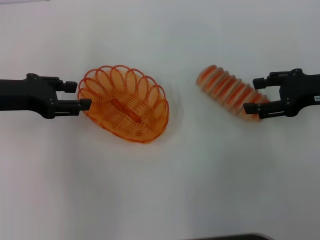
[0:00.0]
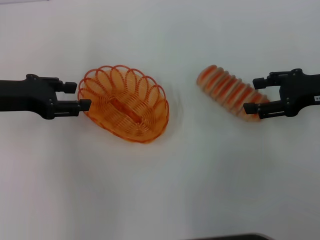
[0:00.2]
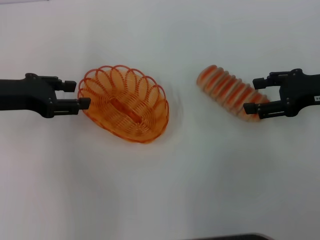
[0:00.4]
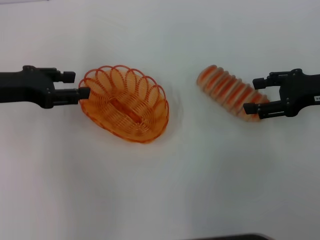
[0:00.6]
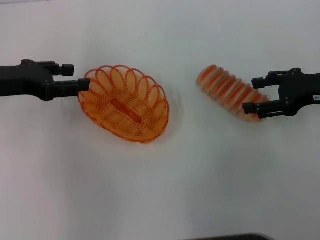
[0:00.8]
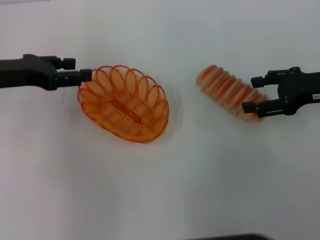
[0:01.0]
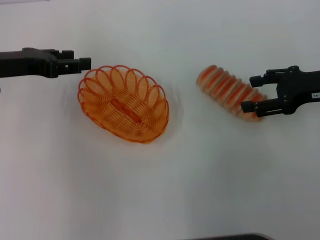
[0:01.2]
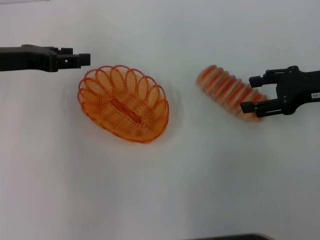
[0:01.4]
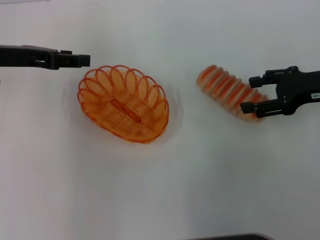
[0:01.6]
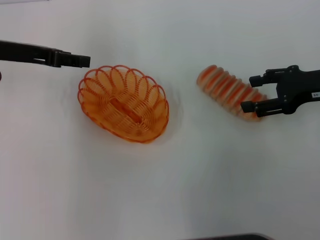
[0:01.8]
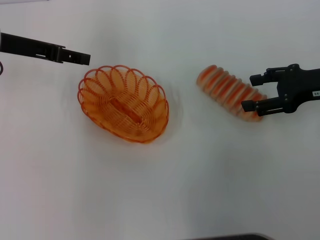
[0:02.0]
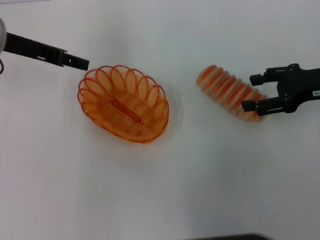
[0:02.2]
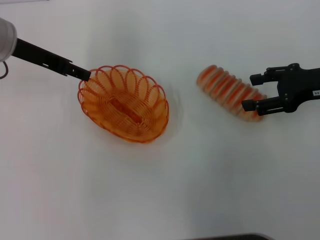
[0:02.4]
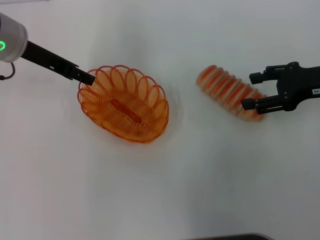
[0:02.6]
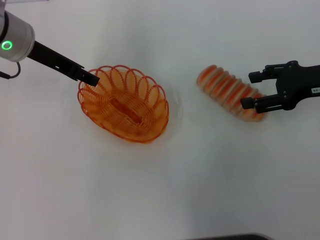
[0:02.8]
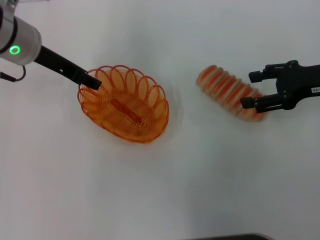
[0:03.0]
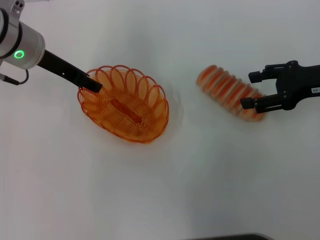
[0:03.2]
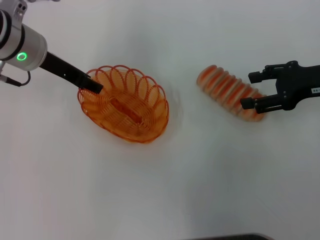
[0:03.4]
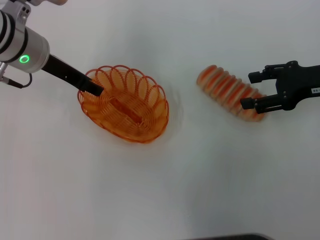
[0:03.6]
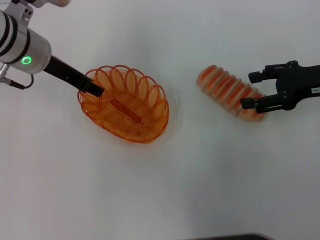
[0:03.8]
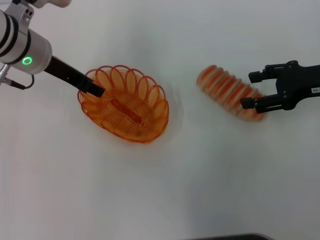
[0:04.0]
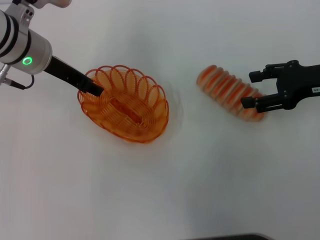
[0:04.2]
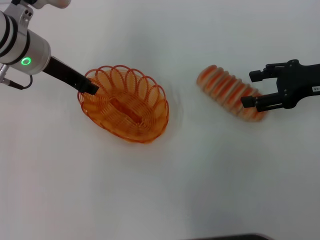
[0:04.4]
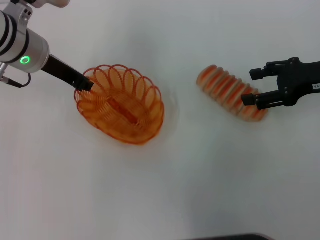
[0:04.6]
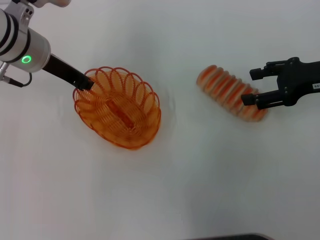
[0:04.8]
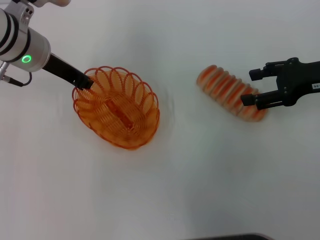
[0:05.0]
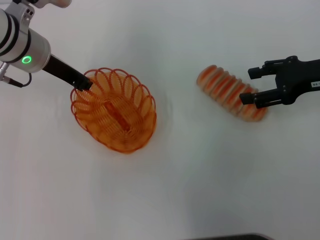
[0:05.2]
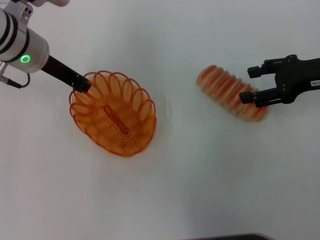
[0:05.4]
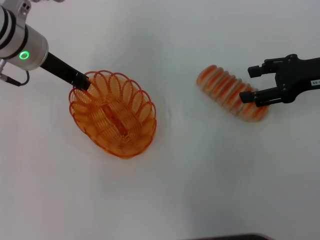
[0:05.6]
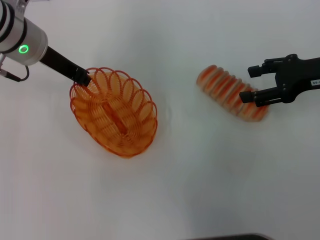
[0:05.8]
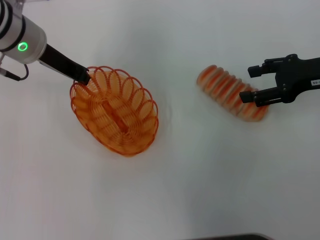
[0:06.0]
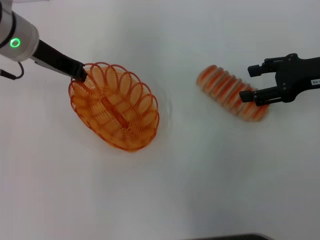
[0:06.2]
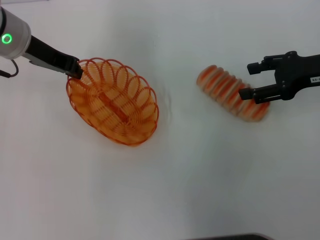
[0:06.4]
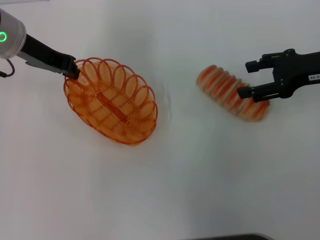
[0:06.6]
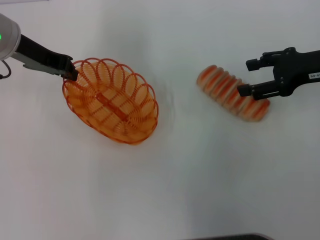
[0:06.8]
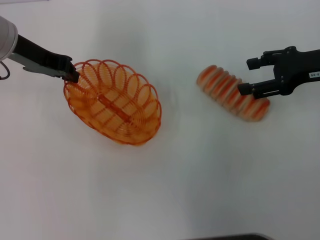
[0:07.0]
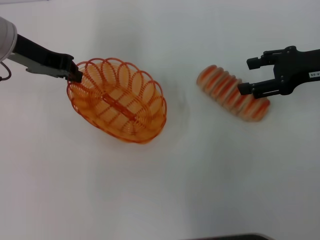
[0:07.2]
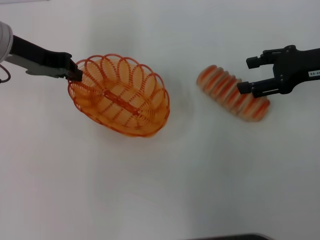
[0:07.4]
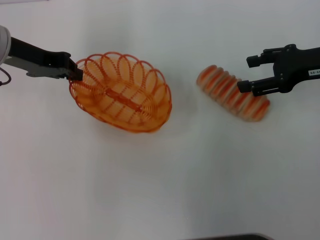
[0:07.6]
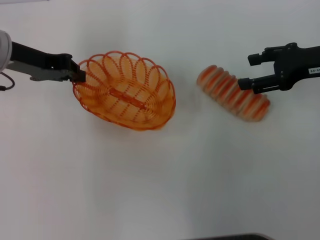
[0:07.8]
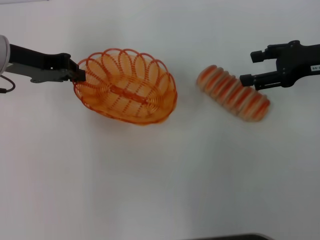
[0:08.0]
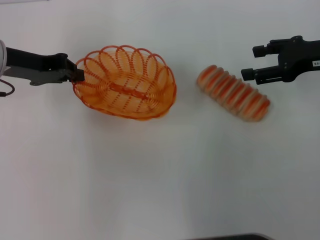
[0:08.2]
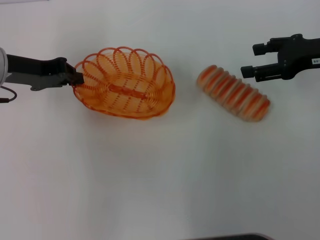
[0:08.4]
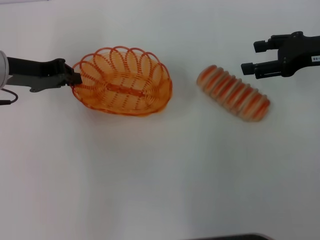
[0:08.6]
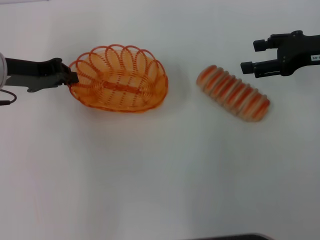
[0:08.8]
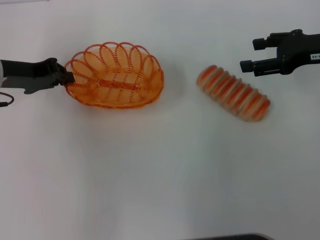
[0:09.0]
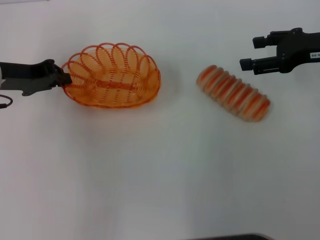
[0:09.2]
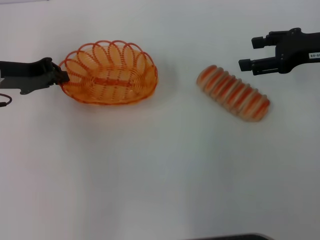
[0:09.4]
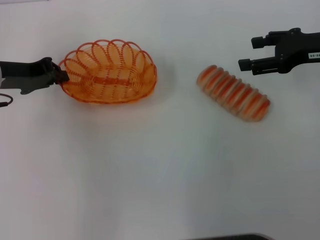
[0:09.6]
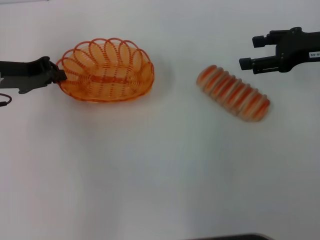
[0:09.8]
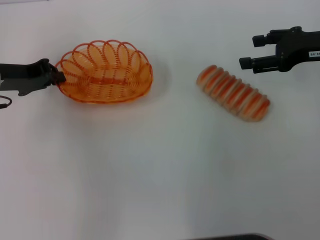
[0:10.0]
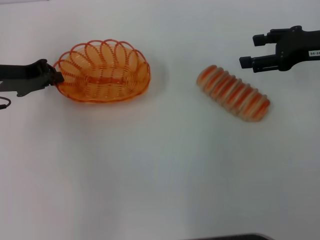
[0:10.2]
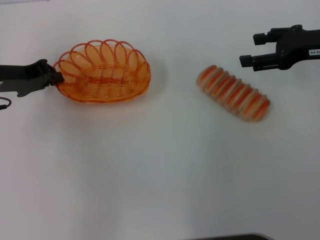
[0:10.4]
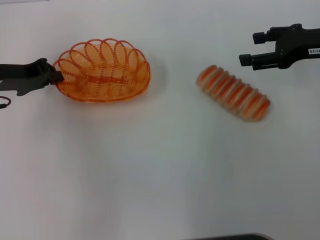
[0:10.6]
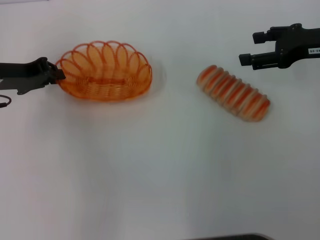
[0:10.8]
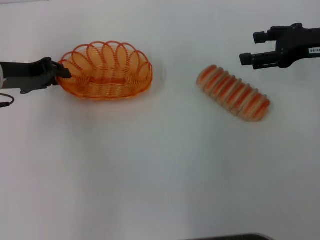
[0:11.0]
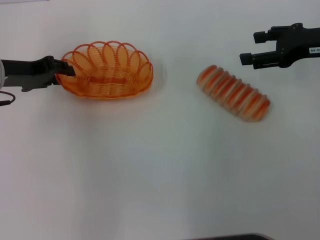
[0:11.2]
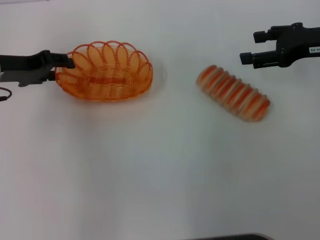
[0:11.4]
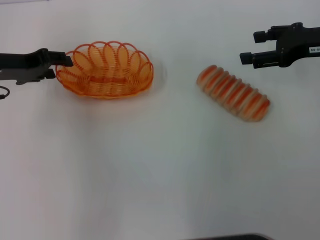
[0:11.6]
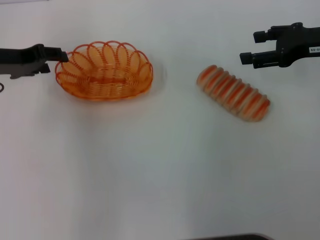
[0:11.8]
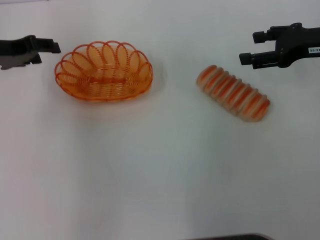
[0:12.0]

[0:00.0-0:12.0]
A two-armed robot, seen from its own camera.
Step, 0:00.0 to 0:07.2: Pick up the basket with the left gripper.
0:00.0 to 0:01.6: There are only small adjustments of the grippers.
0:01.6 to 0:03.0: The left gripper shifts roughly 5 cm to the right.
0:03.0 to 0:04.4: The grippers make only small movements.
0:04.4 to 0:06.0: The left gripper closes its fingers.
0:06.0 to 0:07.6: The left gripper shifts approximately 5 cm to the left.
0:07.6 to 0:09.0: The left gripper moves approximately 5 cm.
0:09.0 to 0:10.4: The grippers stay close to where they were, moving slightly.
0:10.4 to 0:12.0: The left gripper opens its fingers.

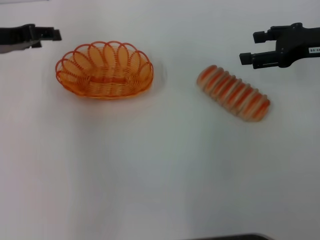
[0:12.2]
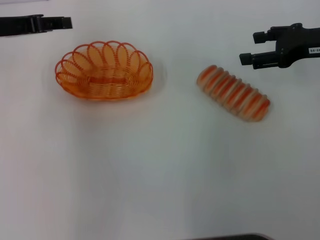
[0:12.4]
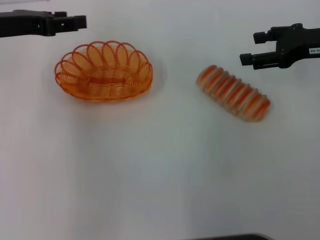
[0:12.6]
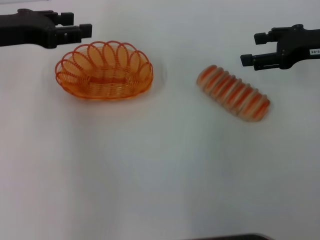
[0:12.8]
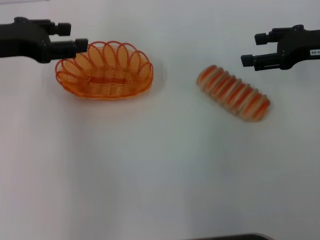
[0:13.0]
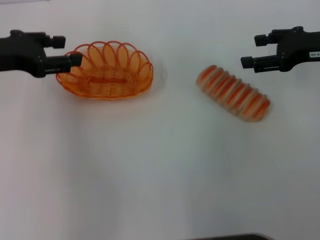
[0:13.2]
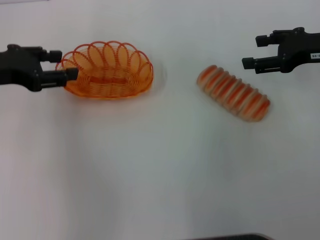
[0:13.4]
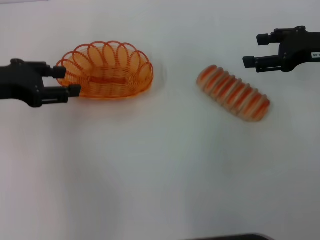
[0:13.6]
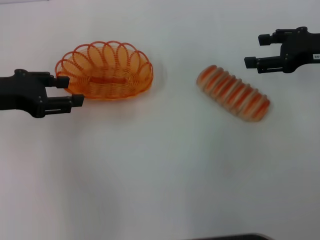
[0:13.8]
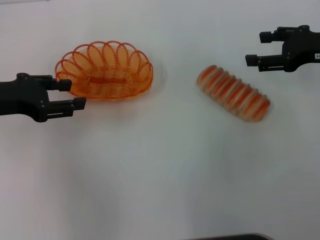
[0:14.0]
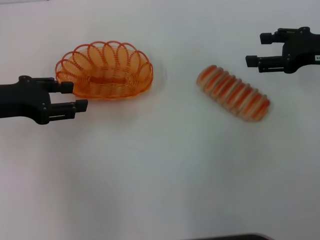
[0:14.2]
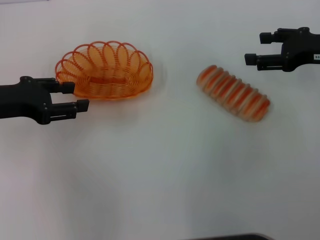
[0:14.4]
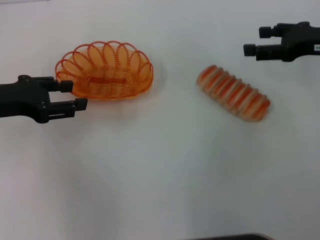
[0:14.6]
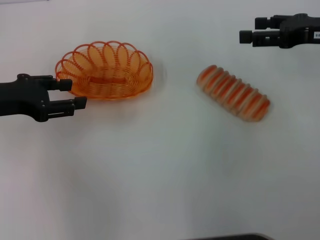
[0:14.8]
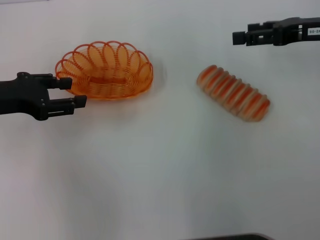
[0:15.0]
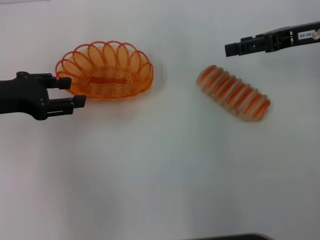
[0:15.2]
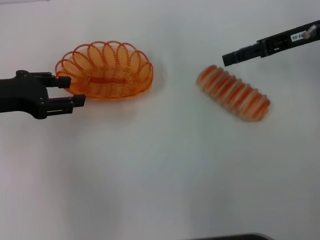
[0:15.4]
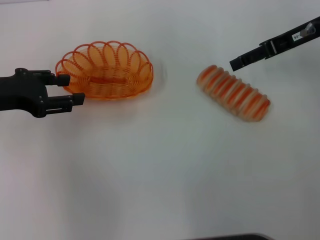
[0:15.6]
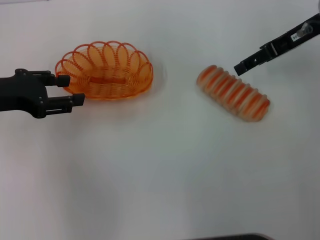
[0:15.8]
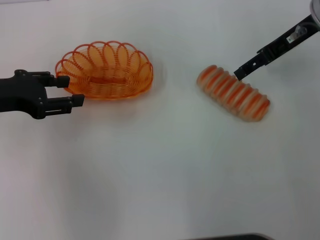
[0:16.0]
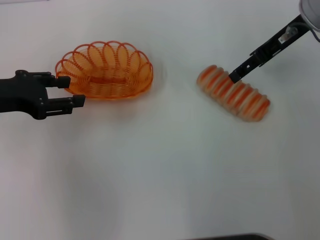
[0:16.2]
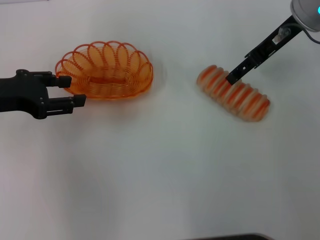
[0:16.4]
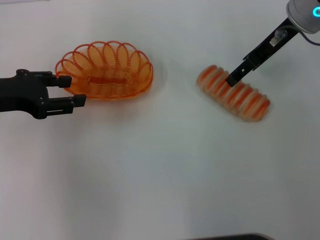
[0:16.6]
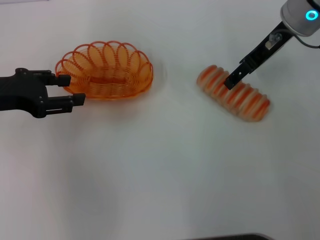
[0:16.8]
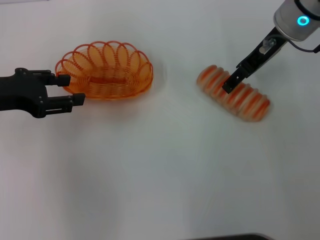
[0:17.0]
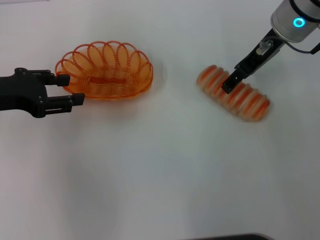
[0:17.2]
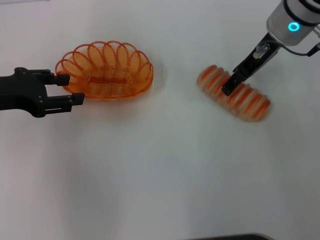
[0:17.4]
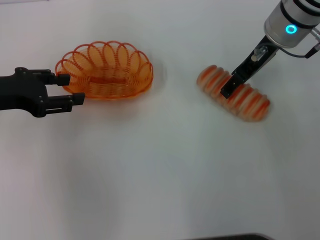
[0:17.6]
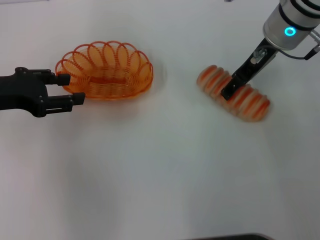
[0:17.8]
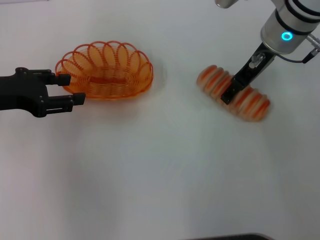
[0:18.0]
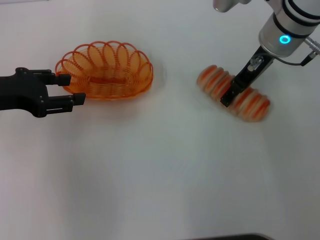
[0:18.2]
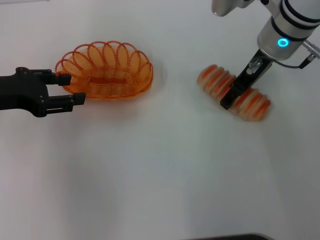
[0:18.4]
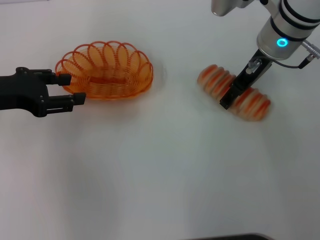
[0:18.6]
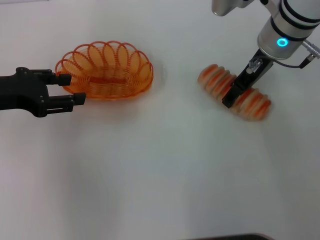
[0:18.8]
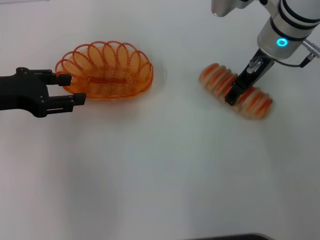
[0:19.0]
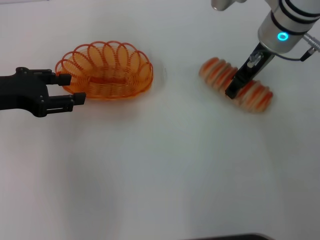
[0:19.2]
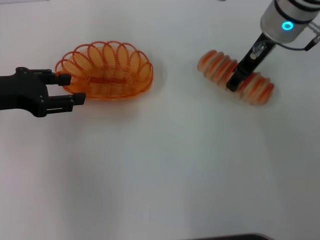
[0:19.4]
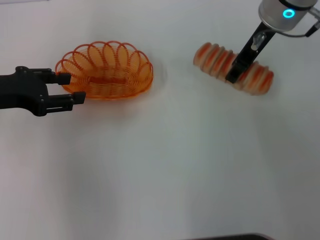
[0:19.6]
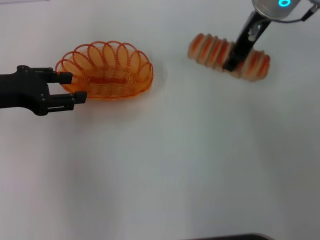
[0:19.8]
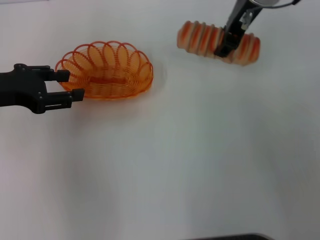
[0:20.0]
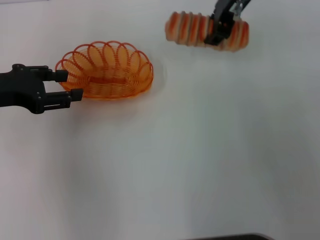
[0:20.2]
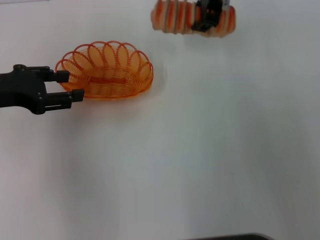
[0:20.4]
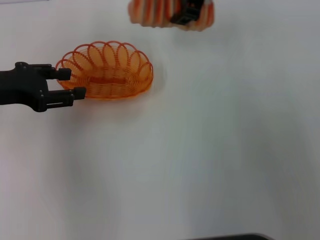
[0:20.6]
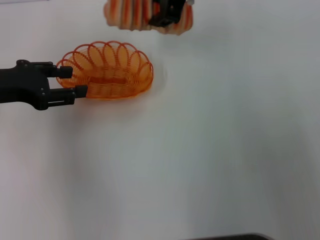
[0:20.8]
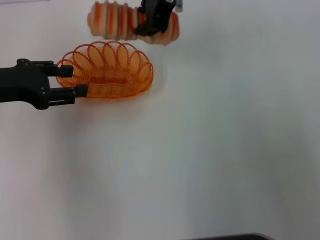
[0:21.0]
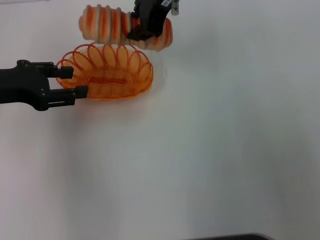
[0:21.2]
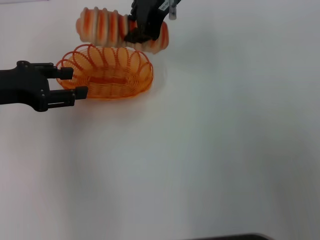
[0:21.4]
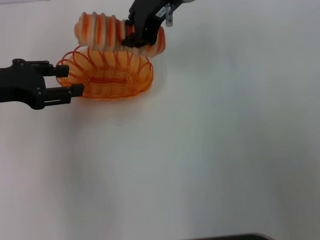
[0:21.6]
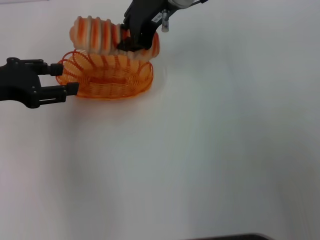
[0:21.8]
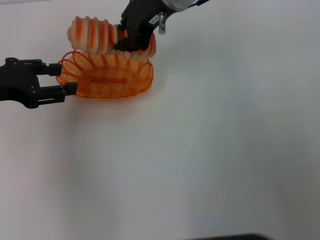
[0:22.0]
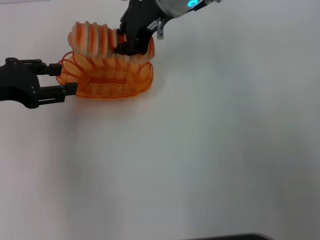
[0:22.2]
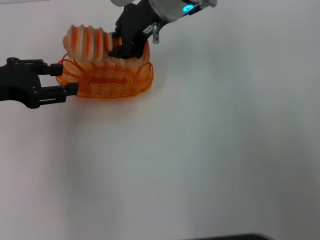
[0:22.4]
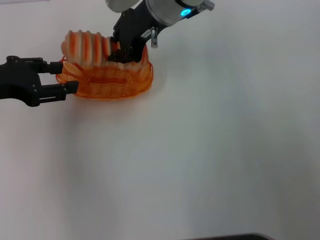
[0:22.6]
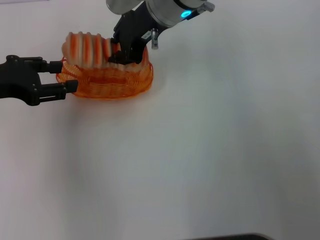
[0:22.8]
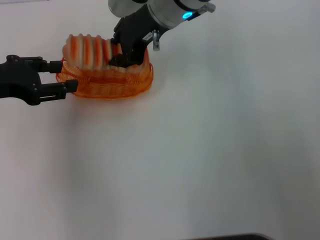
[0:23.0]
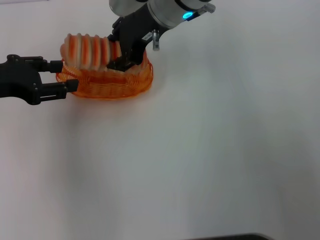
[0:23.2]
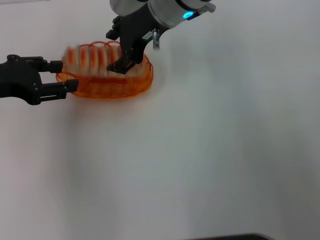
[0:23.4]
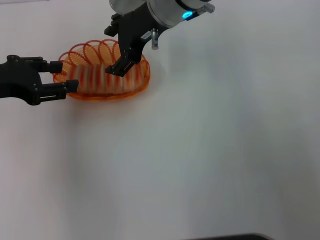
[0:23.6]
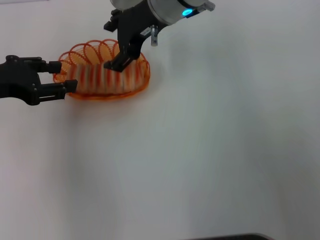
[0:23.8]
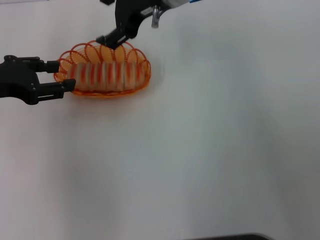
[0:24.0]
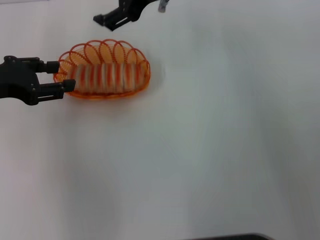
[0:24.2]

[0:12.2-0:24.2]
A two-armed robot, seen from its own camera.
Step, 0:12.4 to 0:19.6: Pick up the long bread with the right gripper.
0:12.2 to 0:13.8: The left gripper is displaced backward by some 5 cm.
0:15.2 to 0:16.6: The right gripper goes some 10 cm to the left.
0:16.6 to 0:18.2: The right gripper shifts by about 5 cm.
0:18.2 to 0:19.8: The right gripper is displaced upward by about 5 cm, and closes up.
0:19.8 to 0:21.2: The right gripper is displaced to the left by some 10 cm, and closes its fingers.
0:21.2 to 0:22.6: The right gripper travels downward by about 5 cm.
0:22.6 to 0:24.2: The right gripper opens up.
